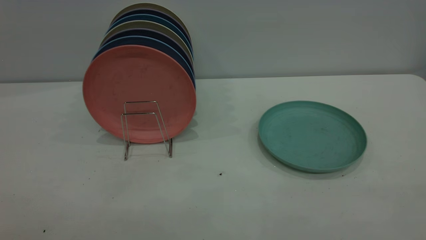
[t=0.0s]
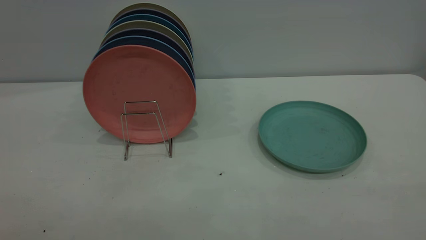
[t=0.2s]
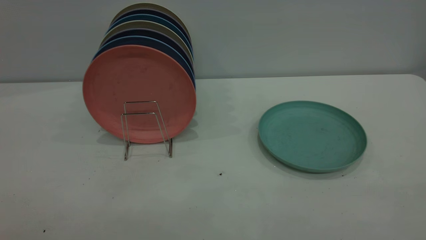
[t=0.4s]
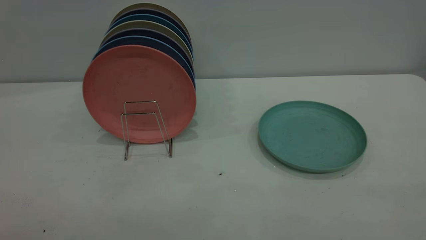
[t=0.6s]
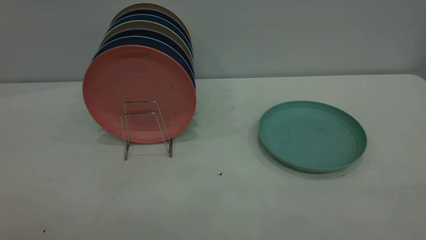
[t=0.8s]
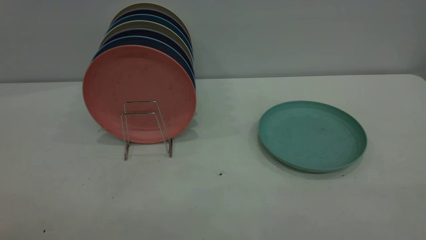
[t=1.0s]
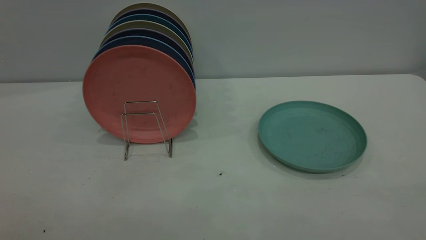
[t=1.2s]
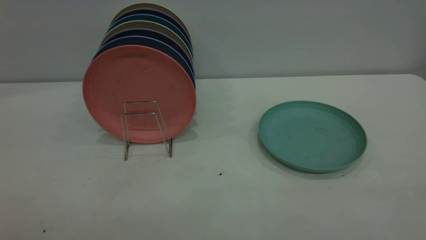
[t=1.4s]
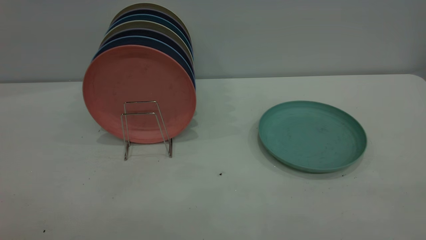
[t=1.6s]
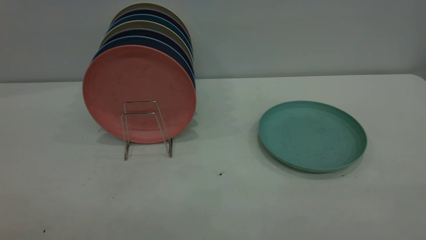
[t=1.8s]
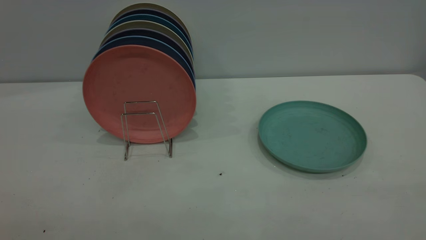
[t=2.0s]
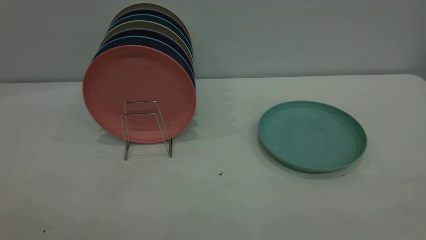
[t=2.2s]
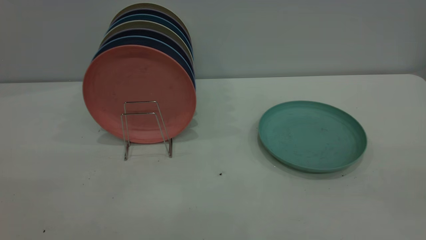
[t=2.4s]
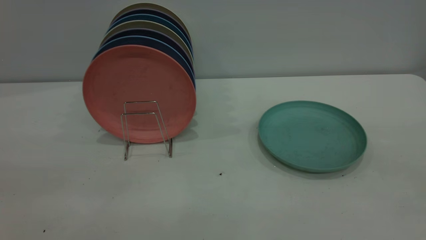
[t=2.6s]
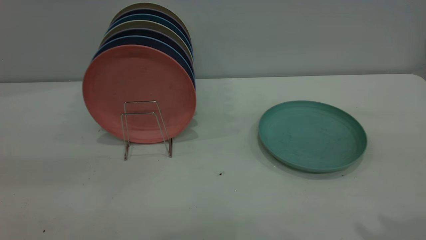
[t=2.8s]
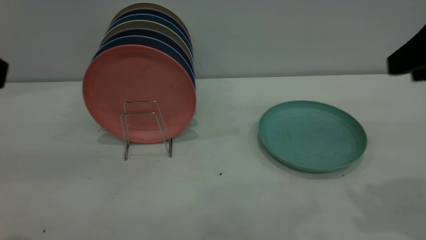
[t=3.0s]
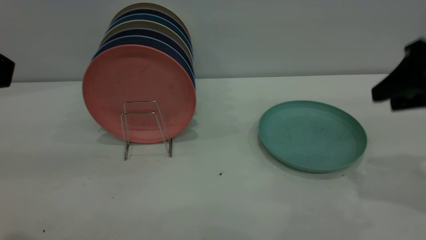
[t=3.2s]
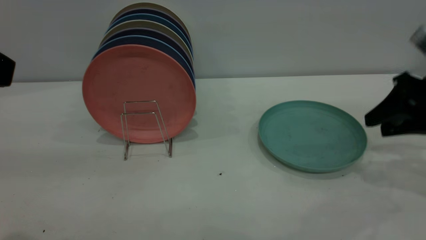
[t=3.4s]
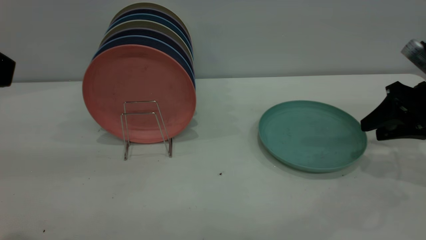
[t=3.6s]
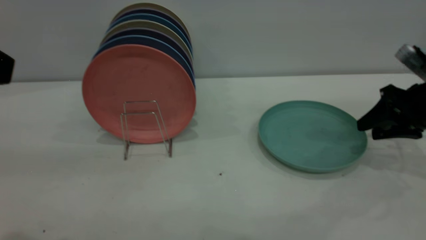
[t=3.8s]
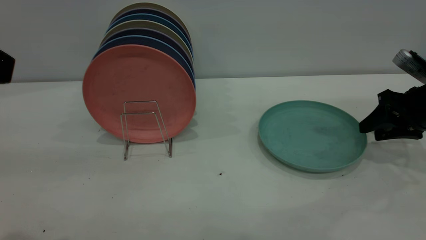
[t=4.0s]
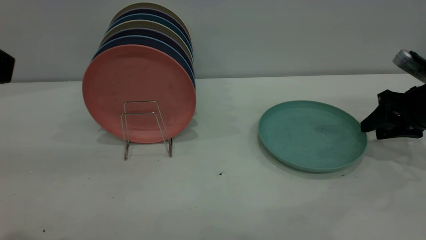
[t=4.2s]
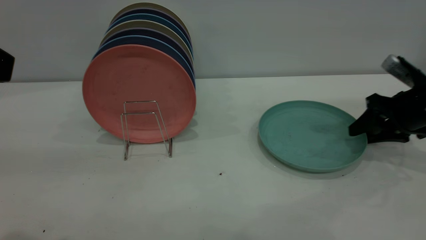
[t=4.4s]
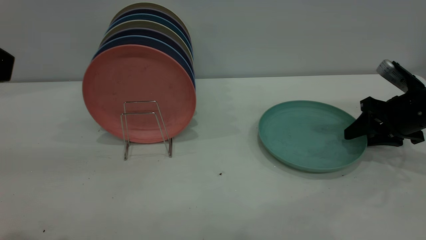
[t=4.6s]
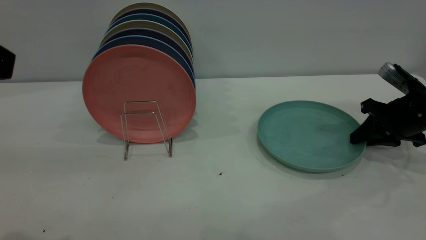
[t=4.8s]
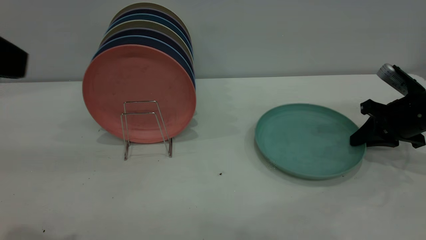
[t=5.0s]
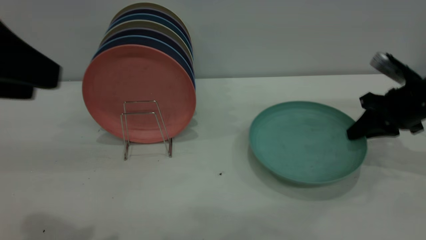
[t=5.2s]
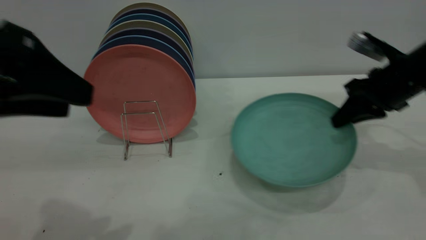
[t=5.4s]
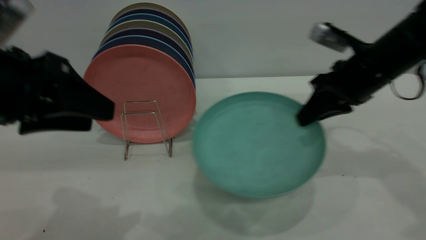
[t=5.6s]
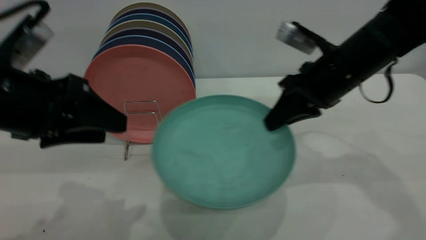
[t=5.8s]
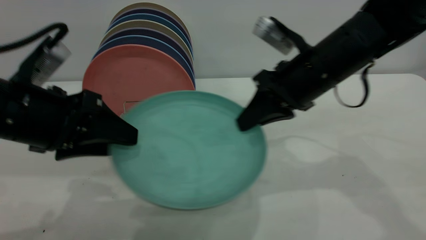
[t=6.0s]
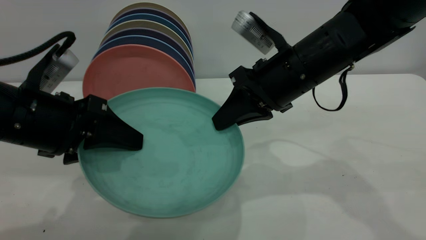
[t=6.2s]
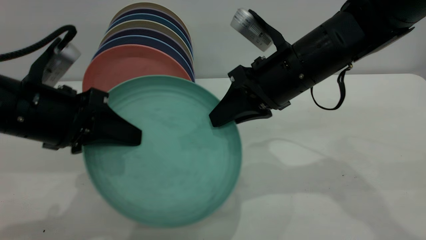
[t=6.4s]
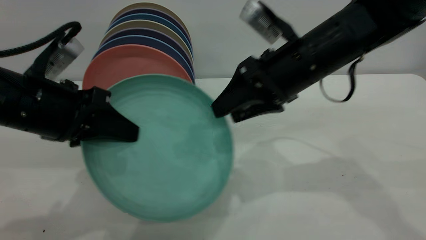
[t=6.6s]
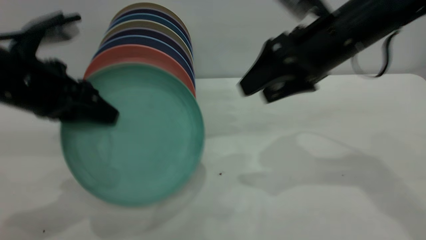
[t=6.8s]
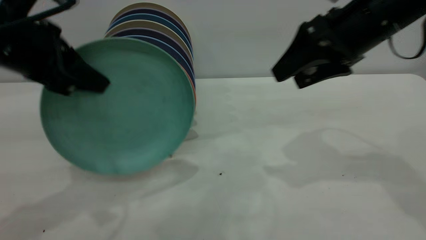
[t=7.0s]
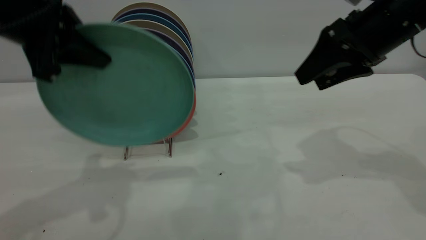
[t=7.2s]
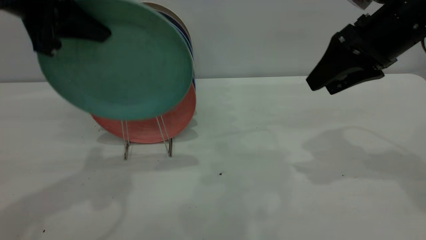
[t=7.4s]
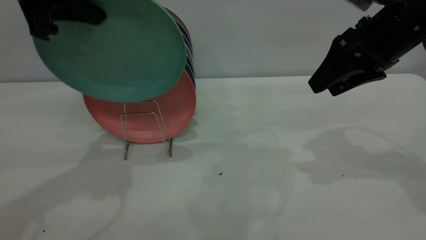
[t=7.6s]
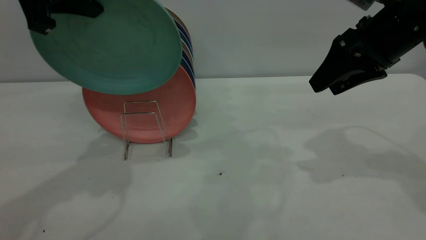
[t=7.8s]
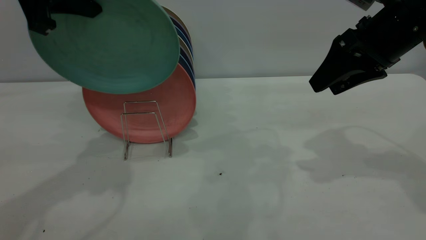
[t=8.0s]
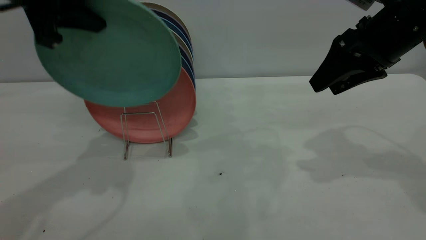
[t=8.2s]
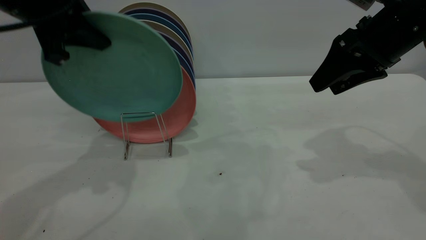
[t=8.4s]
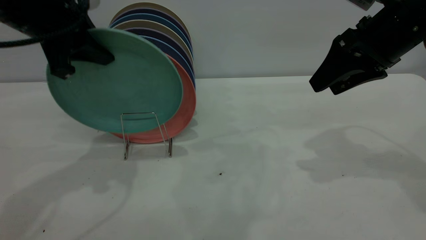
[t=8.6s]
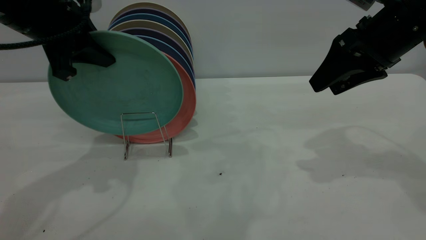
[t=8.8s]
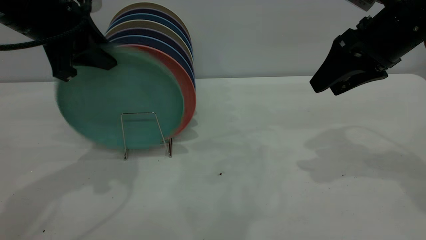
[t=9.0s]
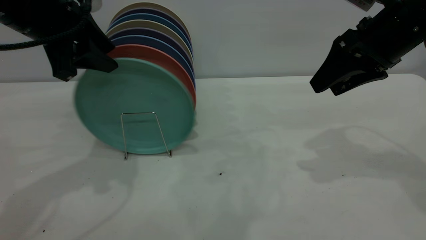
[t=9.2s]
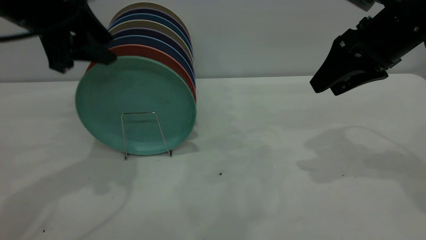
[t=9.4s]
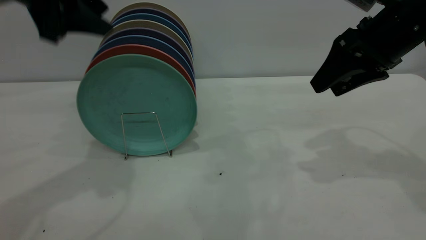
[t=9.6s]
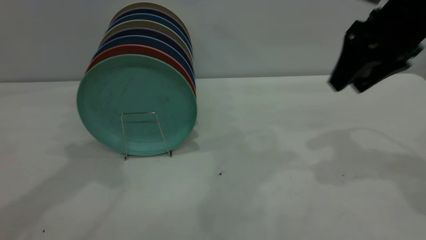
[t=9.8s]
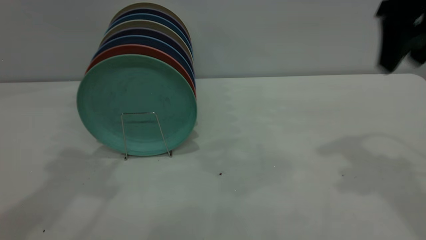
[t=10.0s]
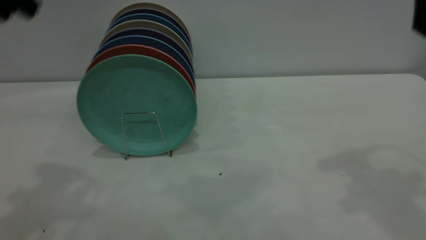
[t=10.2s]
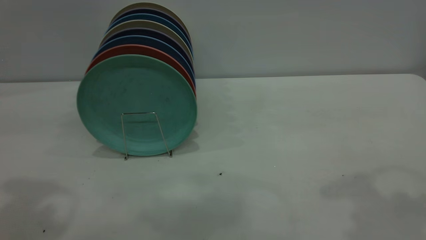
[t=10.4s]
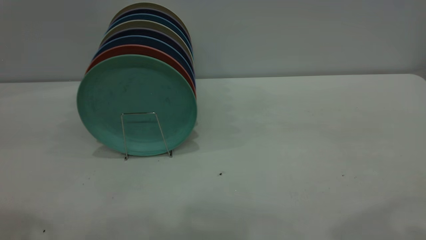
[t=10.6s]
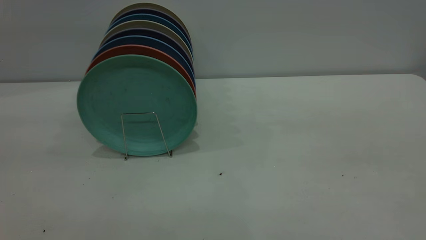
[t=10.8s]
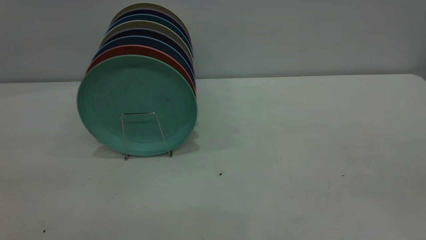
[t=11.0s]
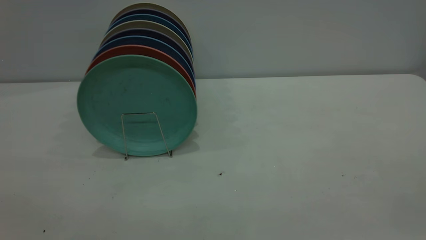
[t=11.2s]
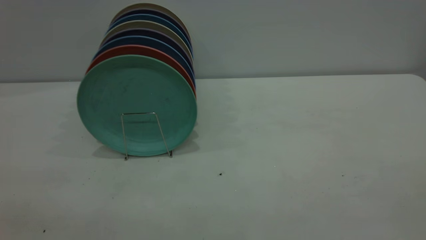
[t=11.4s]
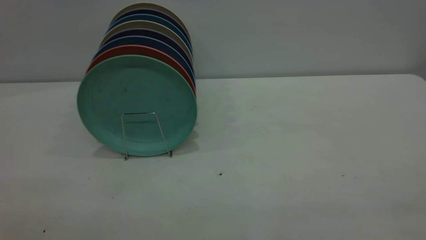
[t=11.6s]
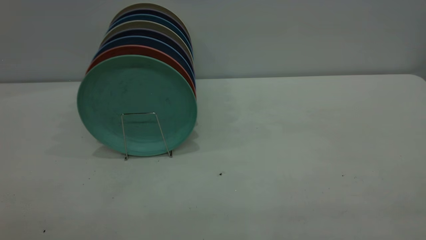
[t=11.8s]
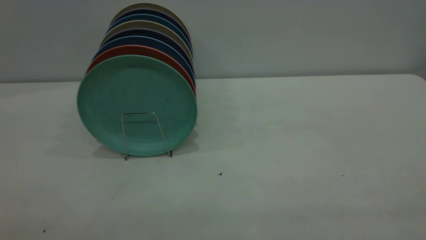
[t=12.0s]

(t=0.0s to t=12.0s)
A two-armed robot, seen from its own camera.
Task of the whole recording: the right gripper grasp the green plate, the right gripper pass the green plate to the left gripper, and the left gripper place the green plate on the plate rack.
Step, t=0.0s - t=5.2s: Pick up the plate with the right gripper.
Step, t=5.4s - t=6.6s: Pass the plate from the right gripper to the left gripper.
Step, t=6.8s - t=9.4s: Place the plate on the shelf.
t=0.0s - t=1.6s: Neither gripper changes place.
t=1.6s - t=3.0s: The right gripper travels forward by some 30 cm.
t=3.0s - t=4.4s: The right gripper goes about 25 cm downward and forward.
t=4.4s - t=6.0s: The left gripper is displaced downward and forward by roughly 20 cm. Meanwhile the right gripper heads to the left and upward, covering approximately 25 cm, and closes its fingers.
t=6.0s - t=7.6s: The right gripper heads to the right and upward, covering some 10 cm, and opens up, while the left gripper moves upward and forward, roughly 15 cm, and closes.
t=7.6s - t=9.0s: The left gripper travels downward by roughly 5 cm, and opens.
t=9.0s - t=10.4s: The two grippers go roughly 20 cm upward and backward.

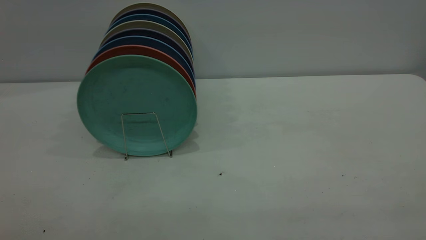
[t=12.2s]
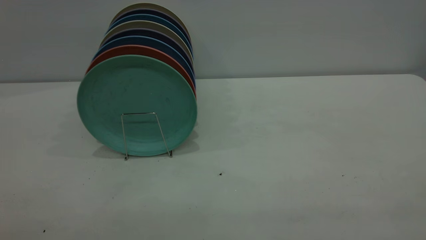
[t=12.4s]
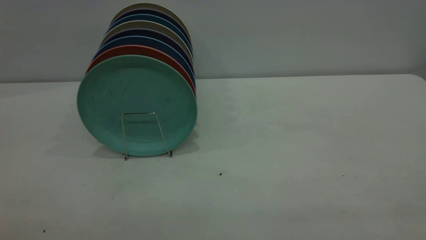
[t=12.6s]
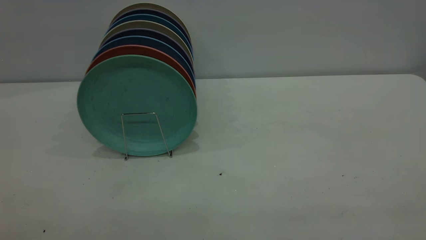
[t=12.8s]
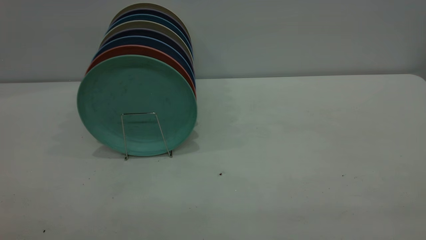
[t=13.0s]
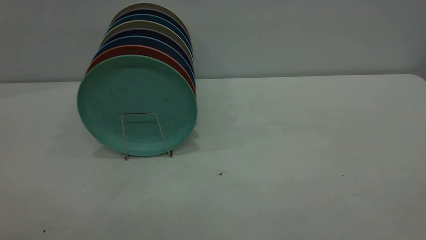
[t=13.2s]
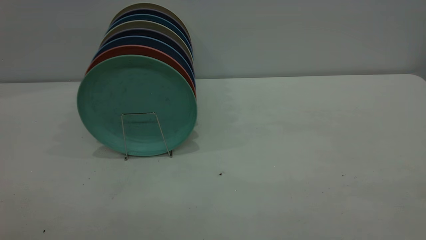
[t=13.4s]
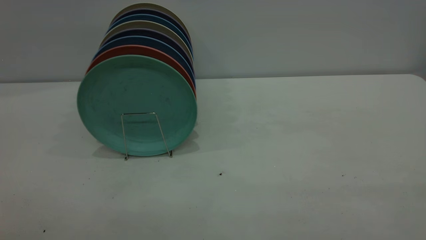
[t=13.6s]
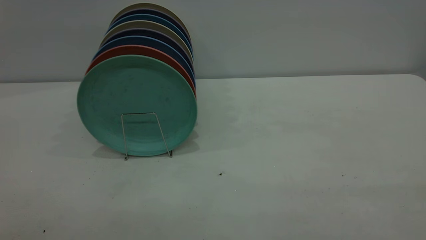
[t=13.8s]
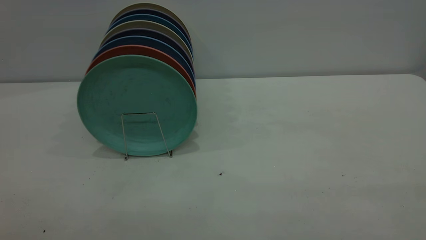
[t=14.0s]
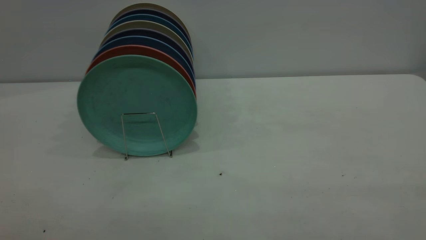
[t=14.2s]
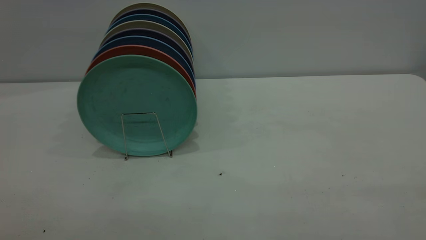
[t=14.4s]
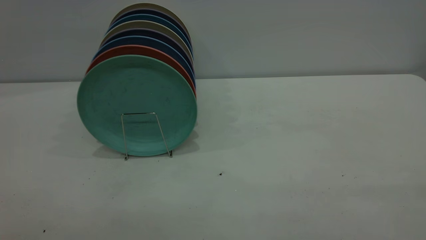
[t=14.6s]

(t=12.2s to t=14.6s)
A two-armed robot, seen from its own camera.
Task of the whole recording: the right gripper grasp the green plate, the right gripper pass the green plate to the left gripper, and the left gripper place the green plate on the plate rack.
t=13.4s - t=14.6s: Both grippers stay about where they are.
